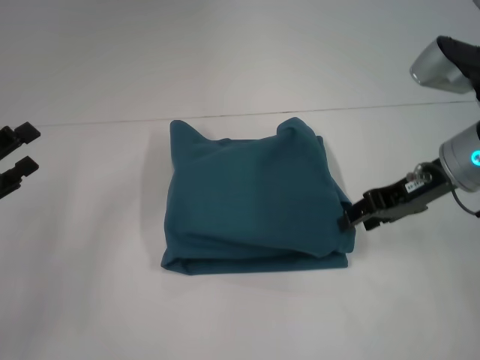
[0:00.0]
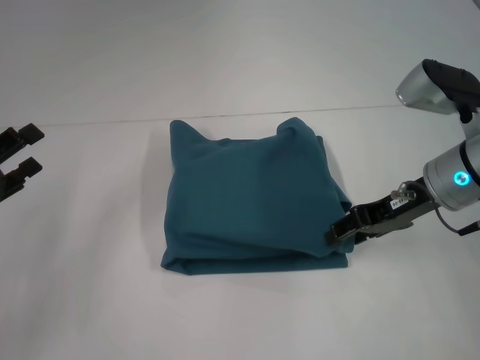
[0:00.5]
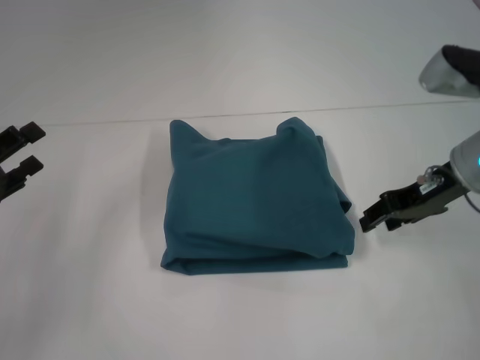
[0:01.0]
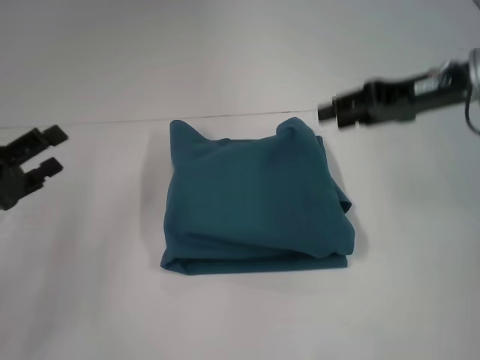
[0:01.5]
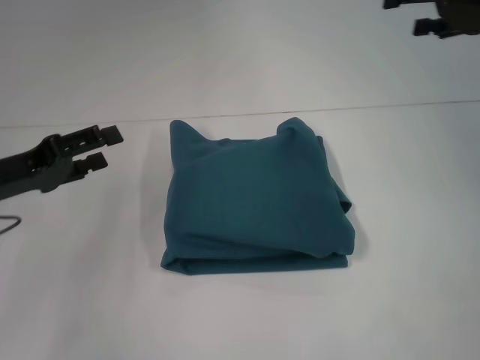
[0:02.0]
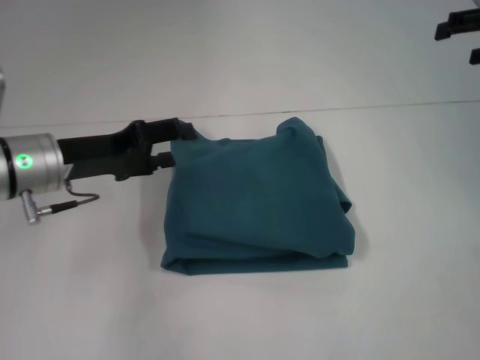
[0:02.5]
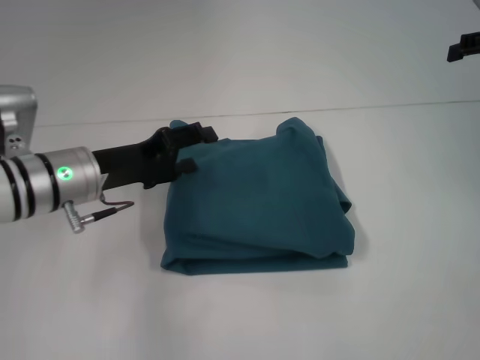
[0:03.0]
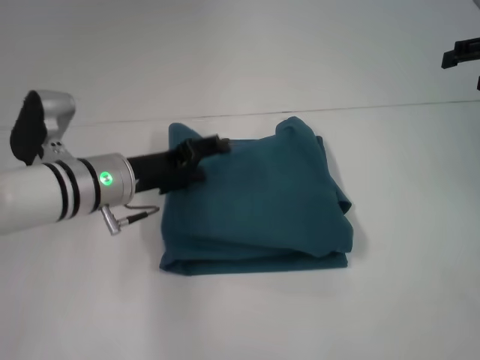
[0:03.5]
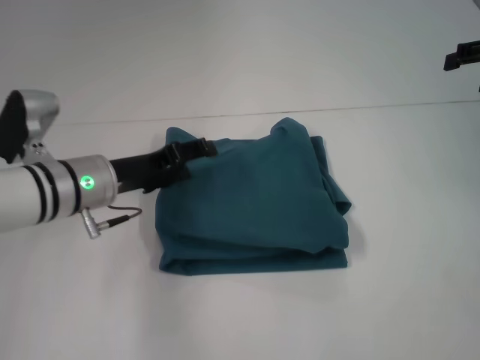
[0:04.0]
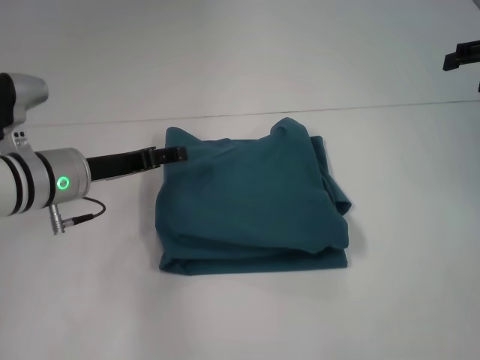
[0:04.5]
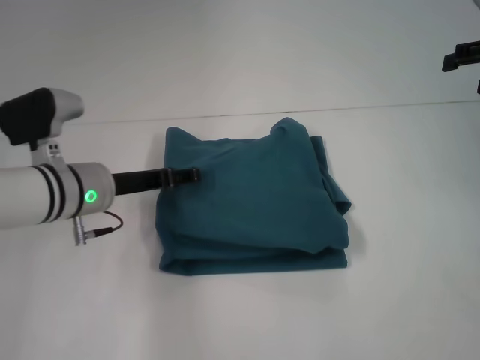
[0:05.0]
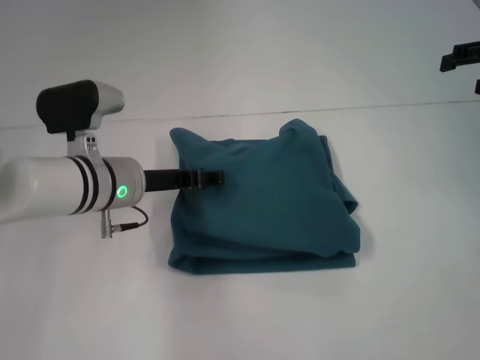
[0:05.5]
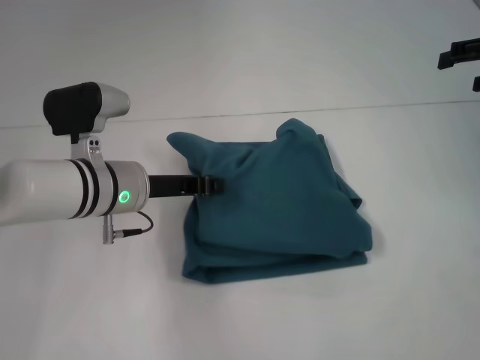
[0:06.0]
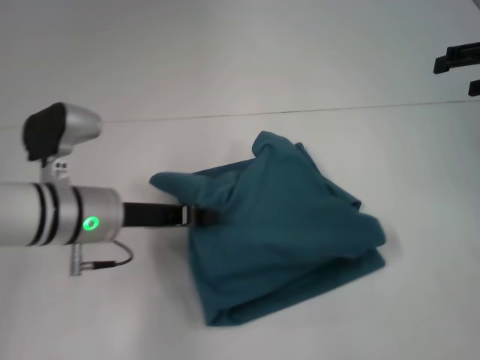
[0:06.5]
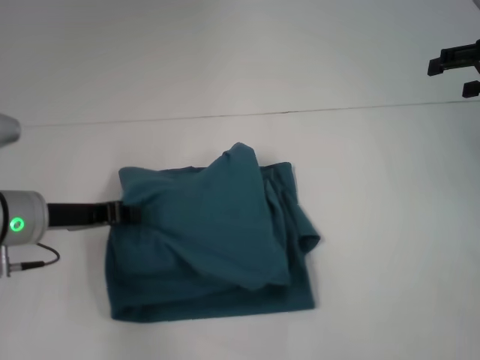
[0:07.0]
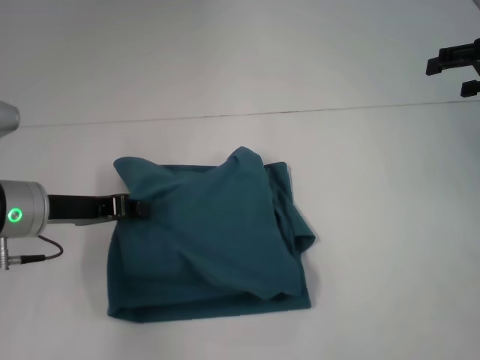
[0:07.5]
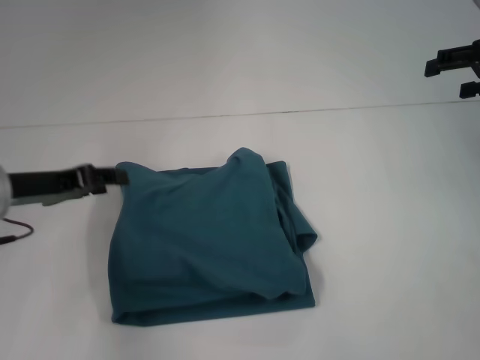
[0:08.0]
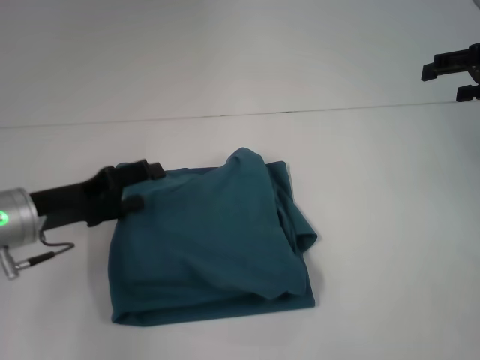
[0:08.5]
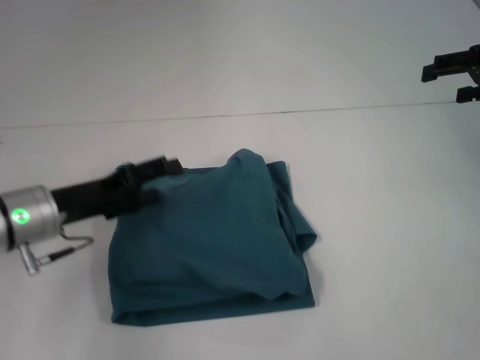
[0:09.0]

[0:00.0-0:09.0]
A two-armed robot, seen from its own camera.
0:00.0 to 0:02.0: The right gripper heads upward, to the right and forward, covering roughly 15 cm; the left gripper ends up roughly 5 cm from where it was.
0:02.0 to 0:04.5: The right gripper shifts by approximately 5 cm. Meanwhile the left gripper is displaced to the right and forward by roughly 10 cm.
0:04.5 to 0:07.0: The left gripper changes place by roughly 5 cm, and closes up.
0:07.0 to 0:09.0: The left gripper opens its fingers.

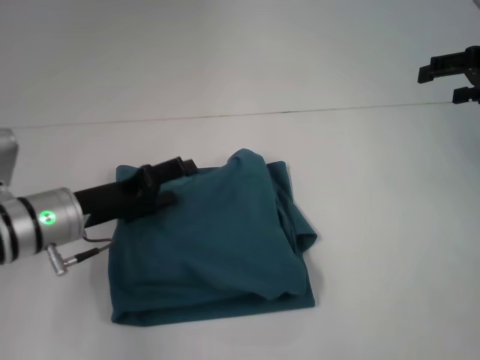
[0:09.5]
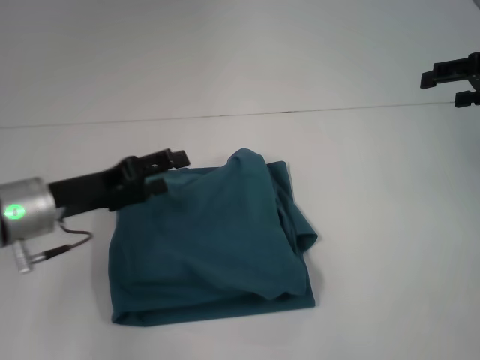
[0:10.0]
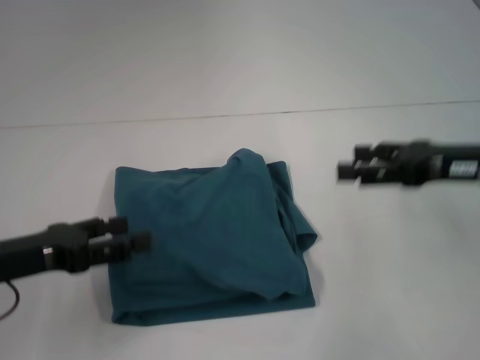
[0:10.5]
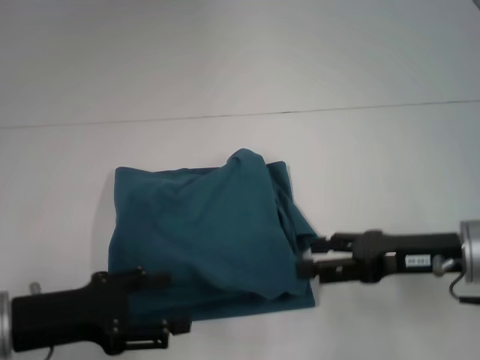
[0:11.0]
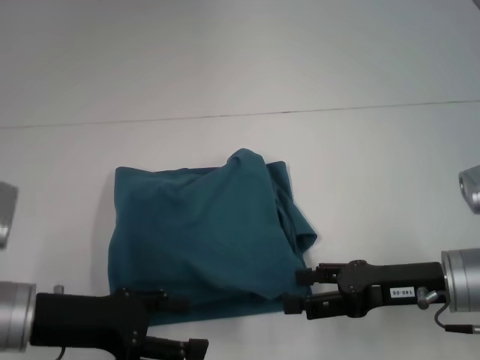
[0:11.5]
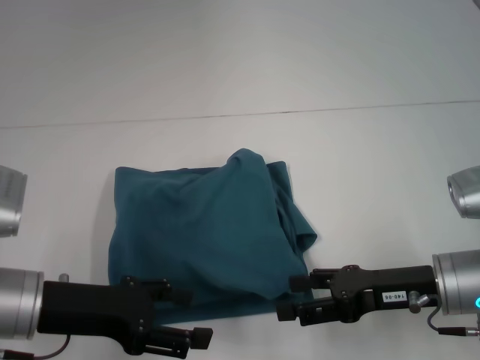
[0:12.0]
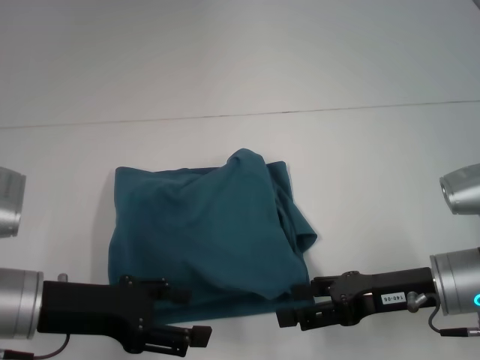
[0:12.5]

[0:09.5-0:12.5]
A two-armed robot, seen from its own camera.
0:09.5 to 0:11.0: The left gripper goes about 10 cm backward. Meanwhile the right gripper heads downward, backward and to the left, covering approximately 20 cm.
0:11.0 to 0:12.5: There are only small adjustments of the grippers.
